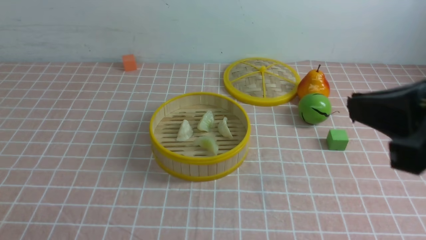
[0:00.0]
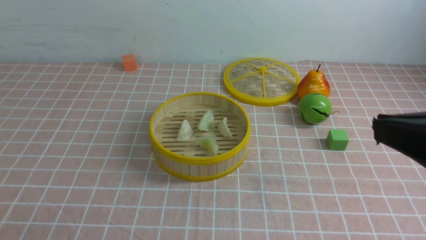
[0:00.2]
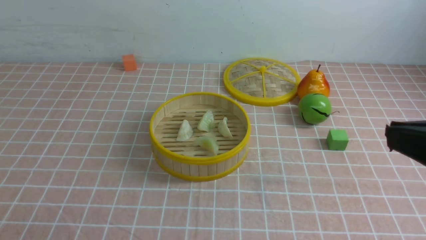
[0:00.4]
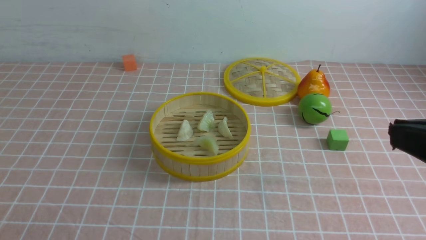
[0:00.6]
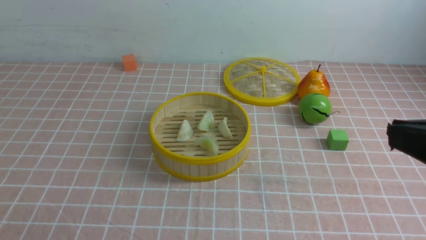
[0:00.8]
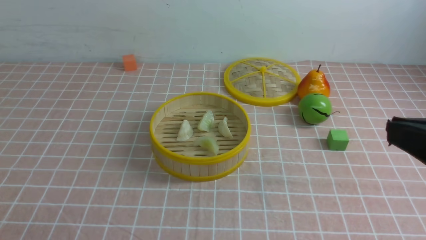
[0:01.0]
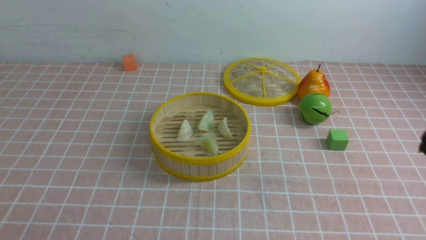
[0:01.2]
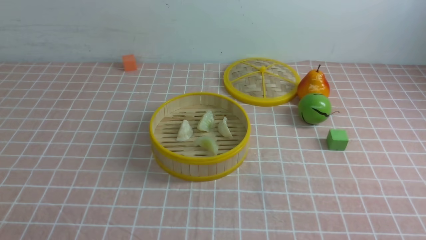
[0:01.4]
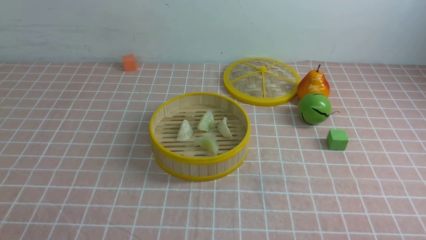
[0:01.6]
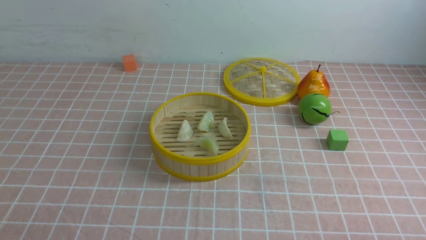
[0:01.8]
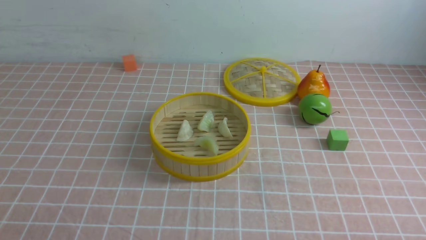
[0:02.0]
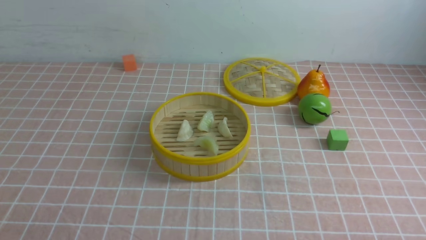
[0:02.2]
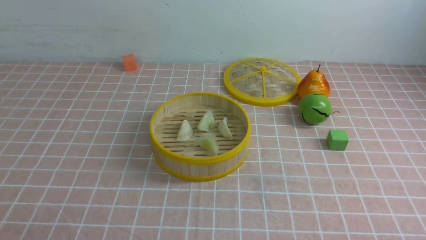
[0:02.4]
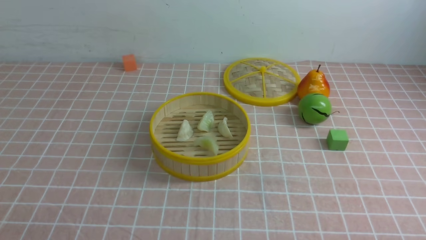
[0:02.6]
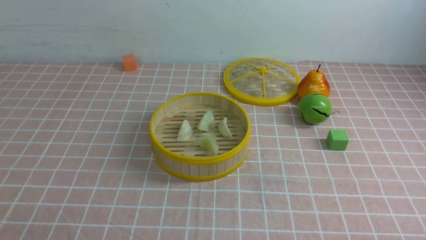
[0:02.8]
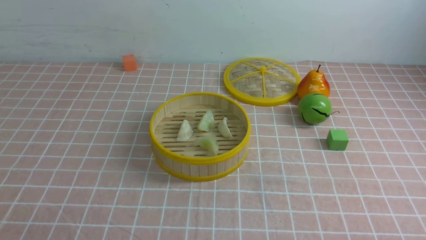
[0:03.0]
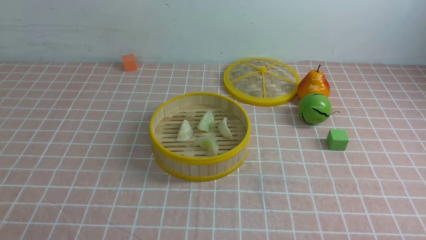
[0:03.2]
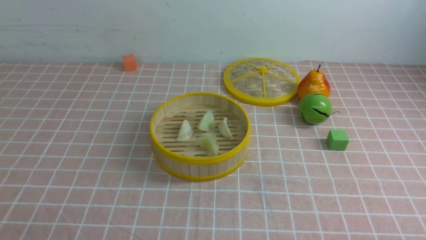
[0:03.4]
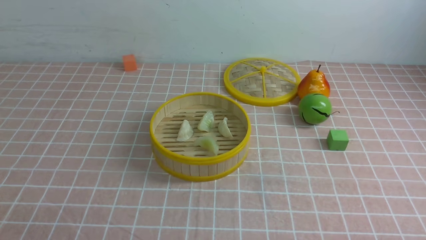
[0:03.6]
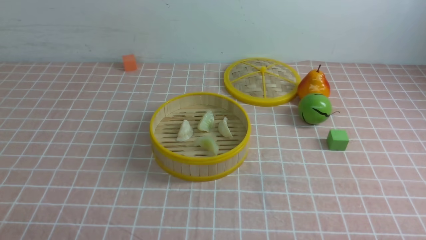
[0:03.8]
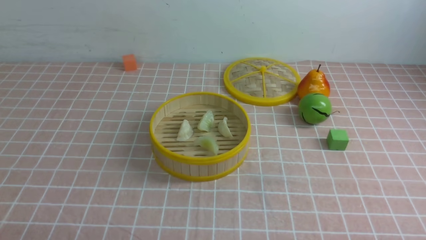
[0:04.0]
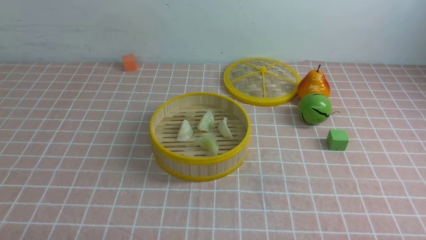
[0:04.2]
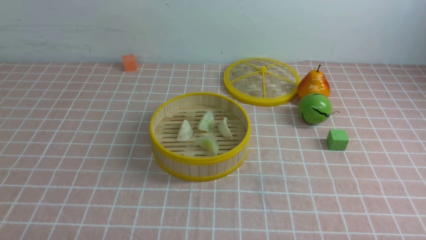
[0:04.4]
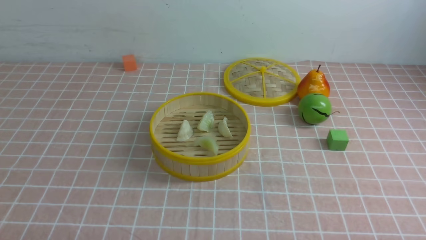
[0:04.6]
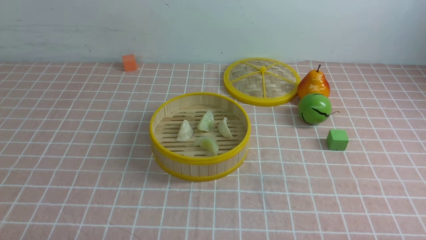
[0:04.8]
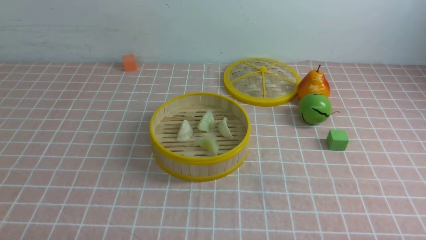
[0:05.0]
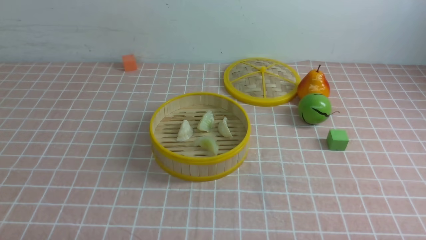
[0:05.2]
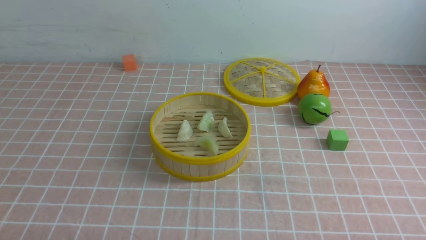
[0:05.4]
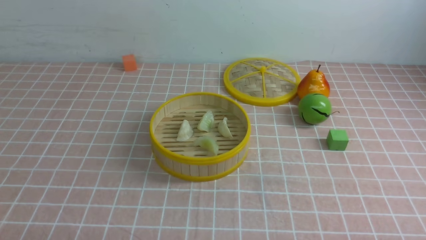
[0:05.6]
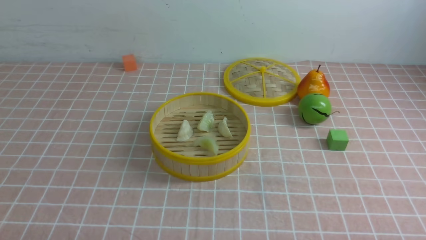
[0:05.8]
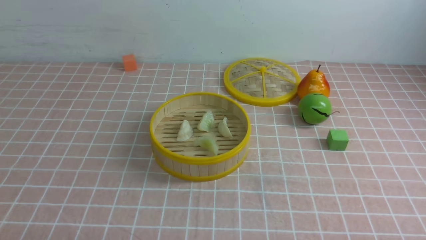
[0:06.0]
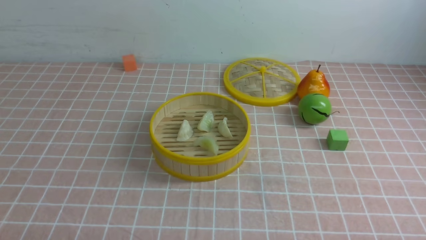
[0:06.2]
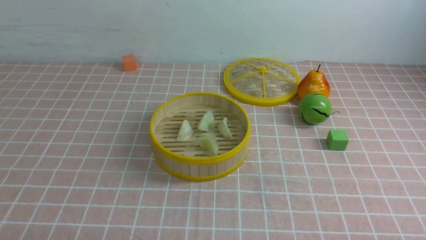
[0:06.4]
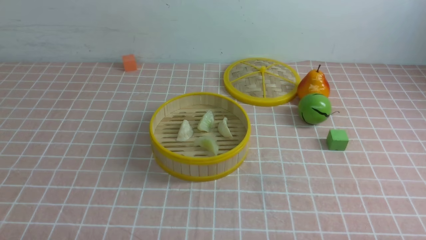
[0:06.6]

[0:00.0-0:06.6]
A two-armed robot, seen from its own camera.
Task of the whole recording: put the dumplings into the steamer on the table with the pink tablecloth.
0:00.0 to 0:01.6: The right gripper is displaced downward, to the right and backward by some 25 cm.
0:05.0 to 0:06.6: Neither gripper changes place.
